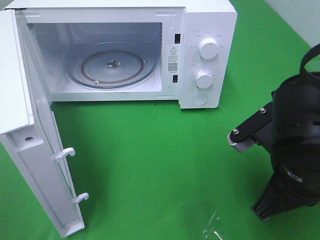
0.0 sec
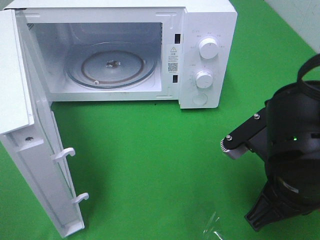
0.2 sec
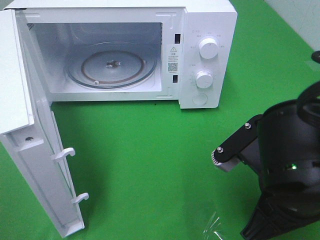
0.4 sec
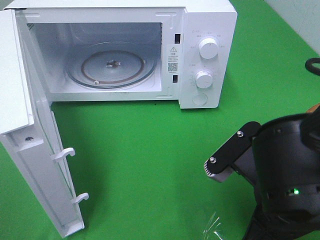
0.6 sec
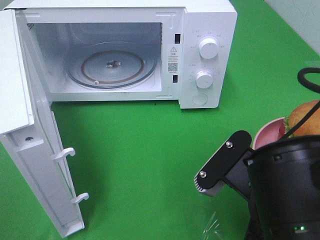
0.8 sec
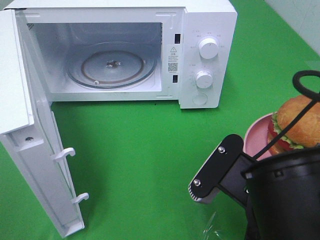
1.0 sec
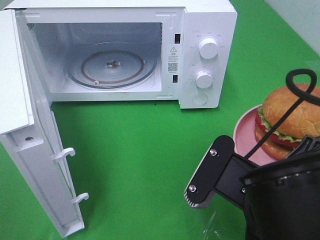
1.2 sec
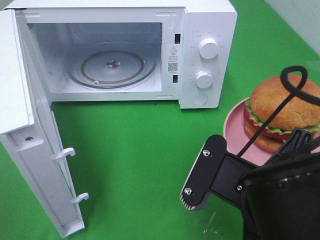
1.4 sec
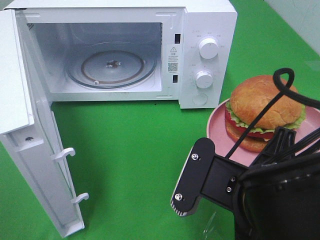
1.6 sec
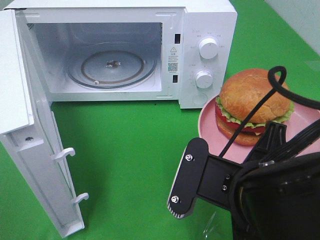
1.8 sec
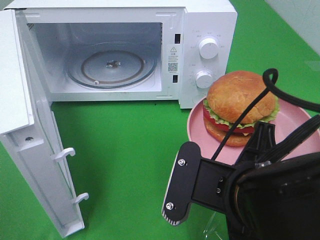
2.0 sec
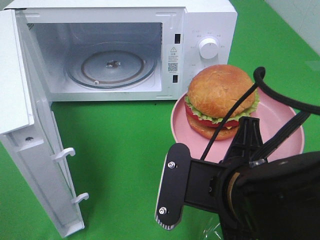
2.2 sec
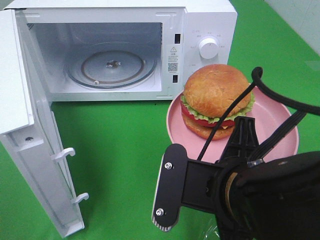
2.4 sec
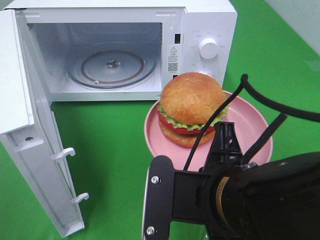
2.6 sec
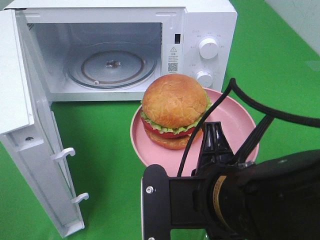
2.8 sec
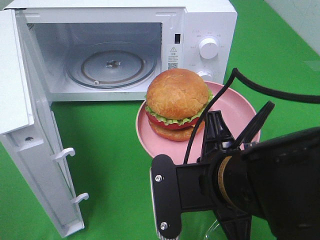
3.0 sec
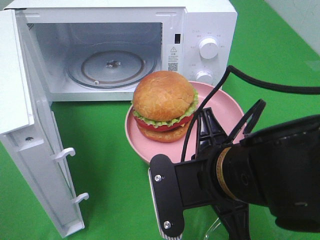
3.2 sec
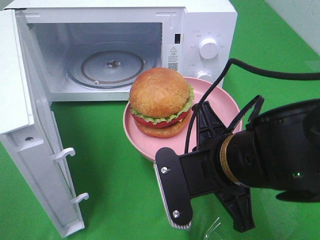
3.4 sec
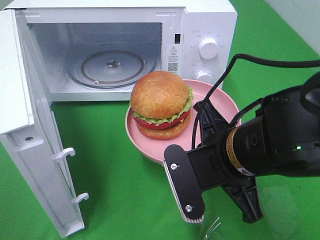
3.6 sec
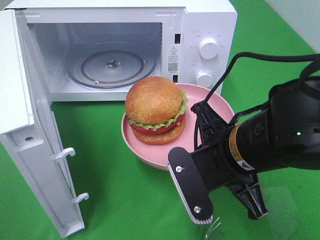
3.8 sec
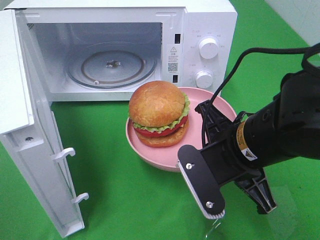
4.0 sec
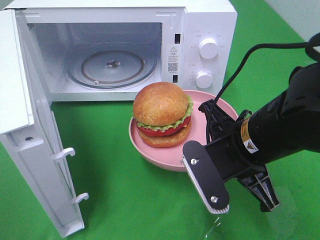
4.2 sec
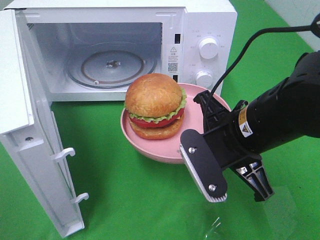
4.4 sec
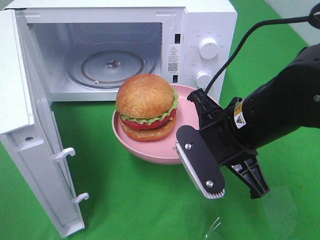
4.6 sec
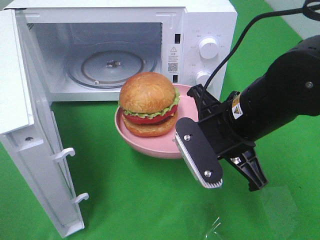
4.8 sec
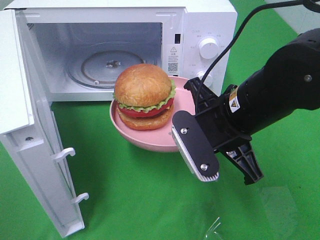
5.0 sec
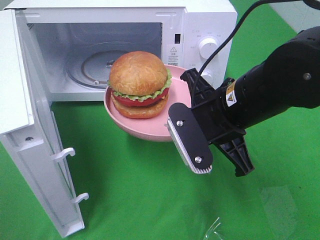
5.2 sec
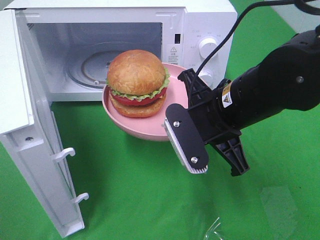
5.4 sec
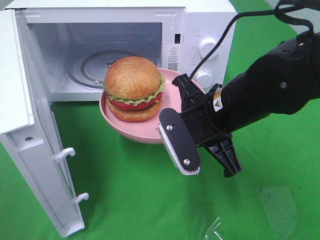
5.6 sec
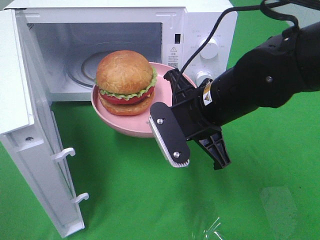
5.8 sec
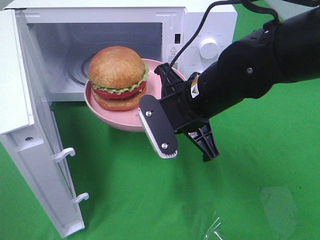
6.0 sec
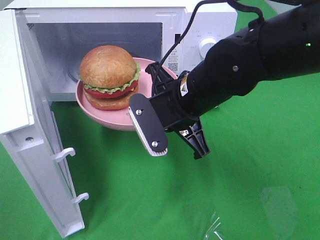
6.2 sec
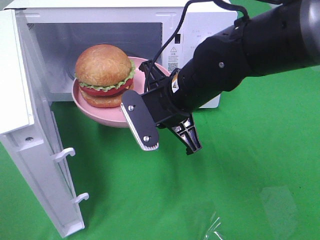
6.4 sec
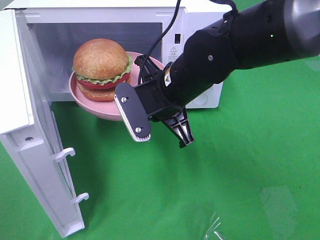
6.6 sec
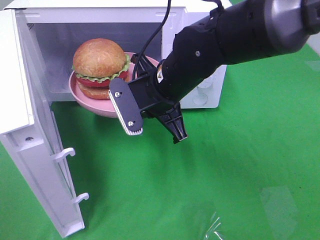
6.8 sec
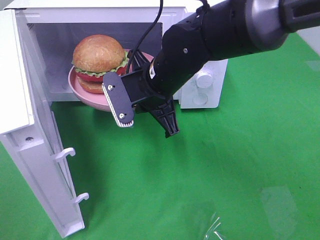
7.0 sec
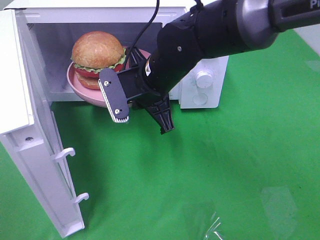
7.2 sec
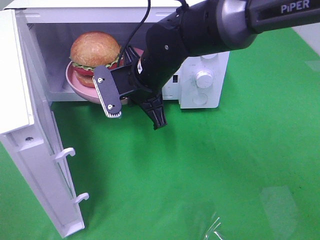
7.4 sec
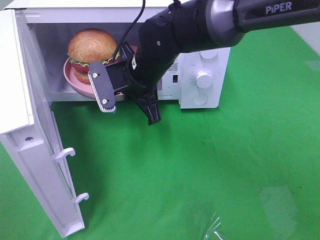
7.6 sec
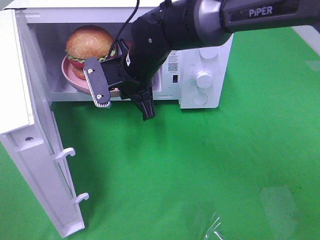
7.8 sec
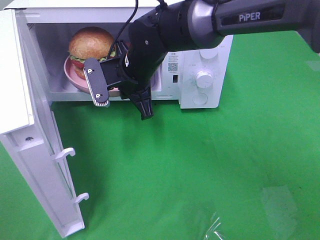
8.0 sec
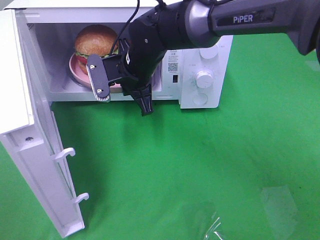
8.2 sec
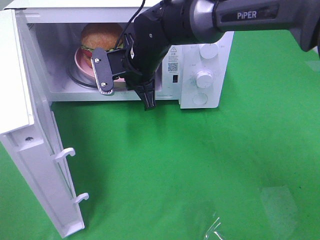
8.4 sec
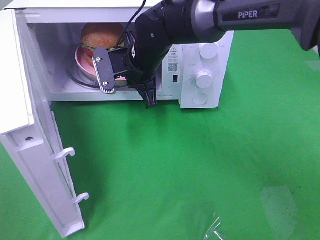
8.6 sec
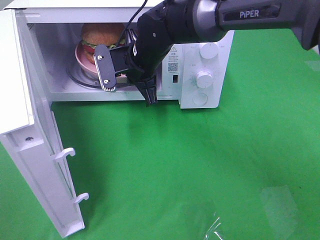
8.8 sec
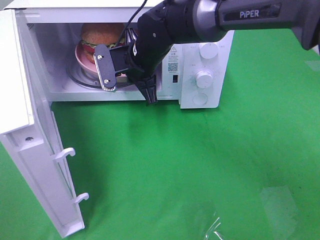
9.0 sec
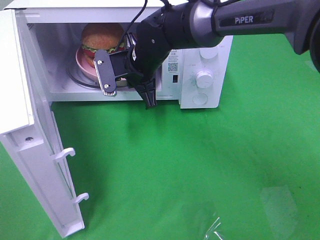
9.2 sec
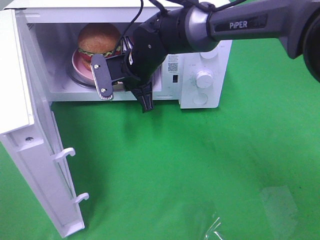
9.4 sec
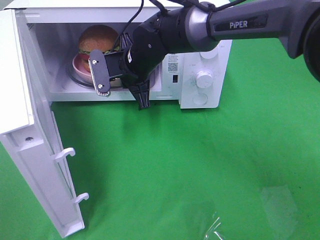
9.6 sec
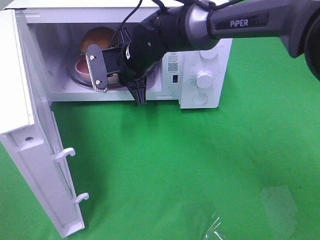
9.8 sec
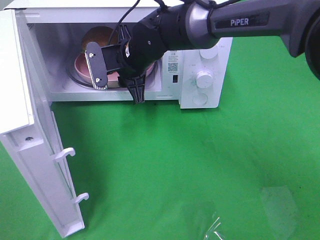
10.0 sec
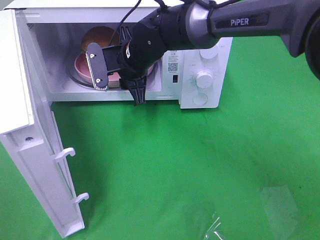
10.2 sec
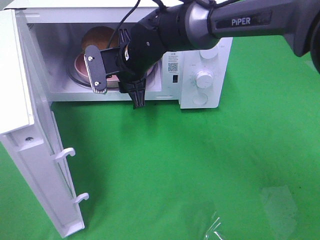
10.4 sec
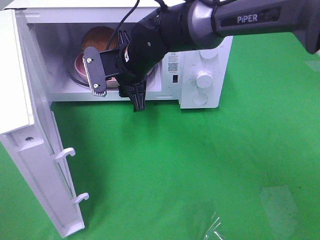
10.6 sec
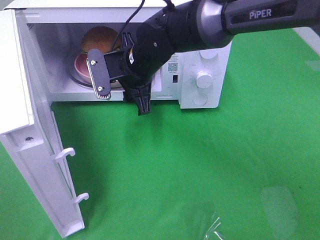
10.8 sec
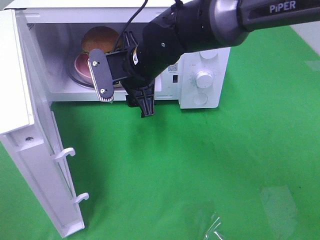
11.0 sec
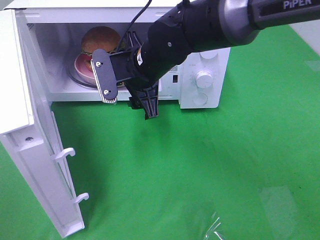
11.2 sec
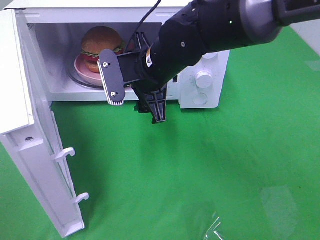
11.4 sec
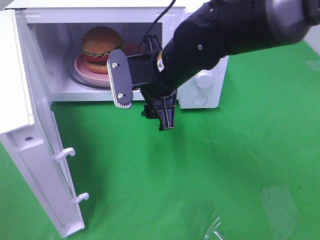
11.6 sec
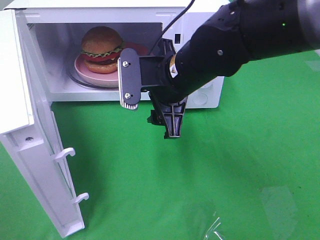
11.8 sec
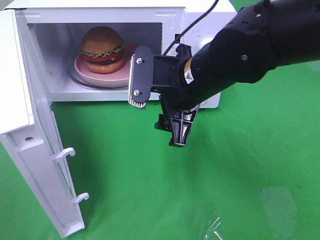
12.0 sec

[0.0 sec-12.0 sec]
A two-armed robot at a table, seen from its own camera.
Task of the whole recording: Heat the burger.
Step, 0.0 sec to 11.0 sec: Right hand: place the plate in the microwave.
0.0 sec to 1.6 sec: The right gripper shifts approximately 10 cm to the left and backward.
3.0 sec to 4.4 sec: The right gripper goes roughly 10 cm forward.
4.4 sec to 6.0 sec: The right gripper goes about 10 cm forward and to the left.
6.0 sec to 7.6 sec: The right gripper moves forward and to the left, roughly 10 cm.
7.6 sec to 9.0 sec: The right gripper shifts some 5 cm forward.
9.0 sec to 10.4 sec: The right gripper opens its fingers.
10.4 sec to 12.0 sec: The right gripper is displaced backward and to the right by approximately 15 cm.

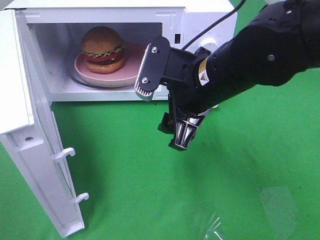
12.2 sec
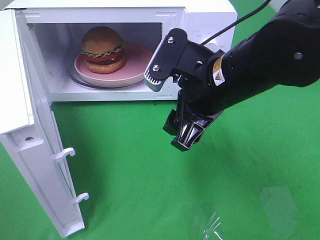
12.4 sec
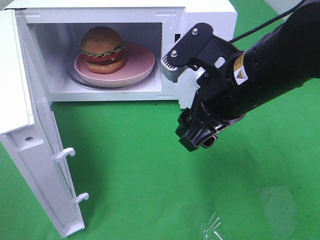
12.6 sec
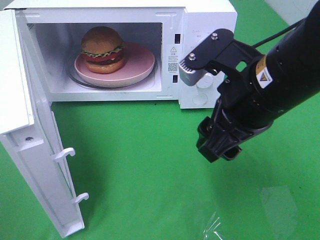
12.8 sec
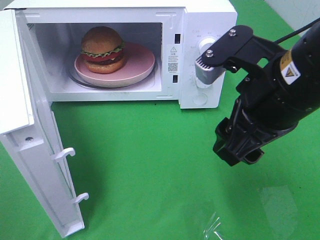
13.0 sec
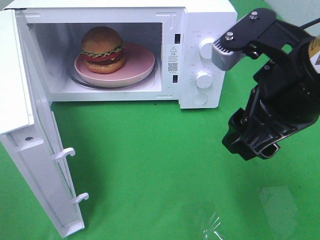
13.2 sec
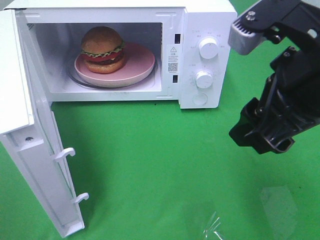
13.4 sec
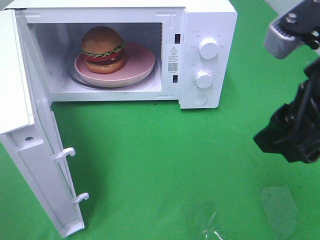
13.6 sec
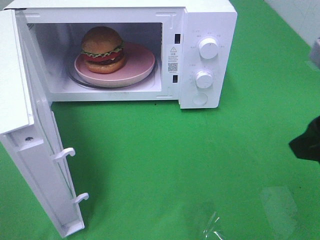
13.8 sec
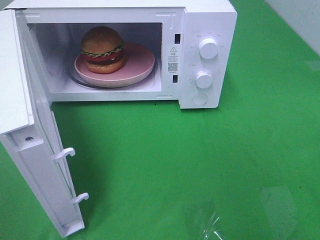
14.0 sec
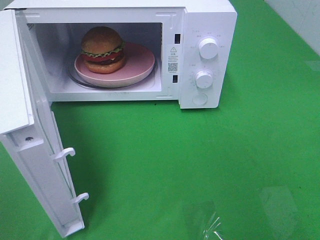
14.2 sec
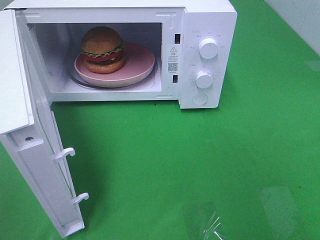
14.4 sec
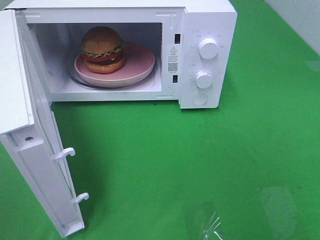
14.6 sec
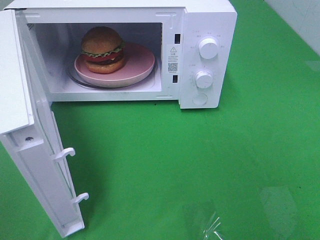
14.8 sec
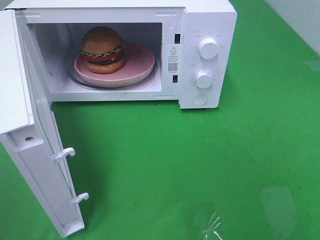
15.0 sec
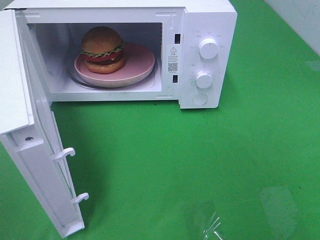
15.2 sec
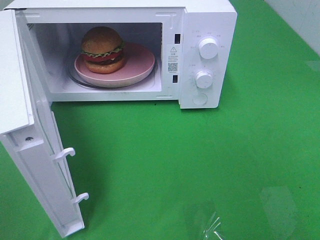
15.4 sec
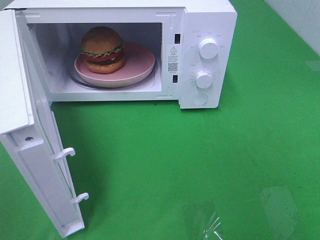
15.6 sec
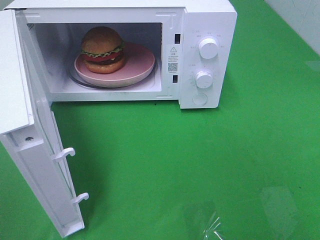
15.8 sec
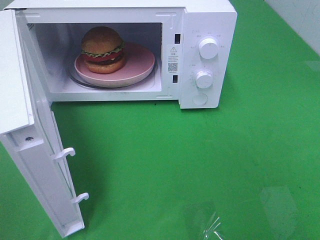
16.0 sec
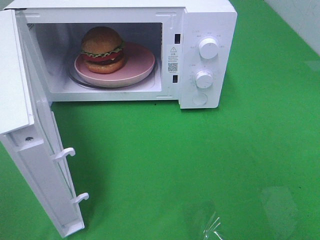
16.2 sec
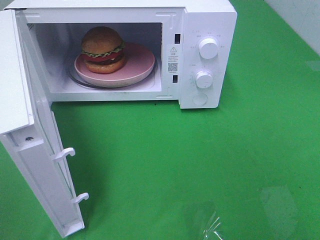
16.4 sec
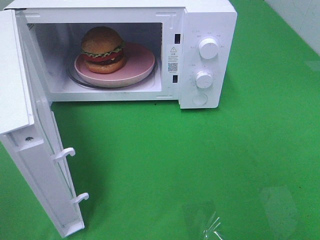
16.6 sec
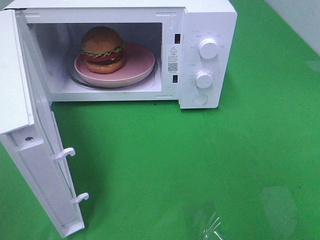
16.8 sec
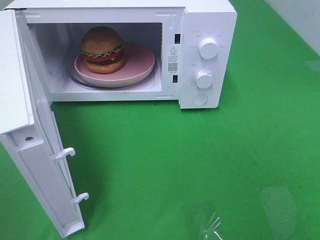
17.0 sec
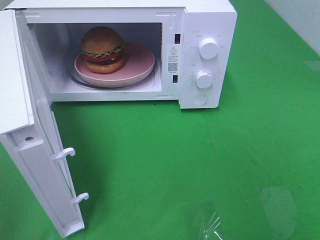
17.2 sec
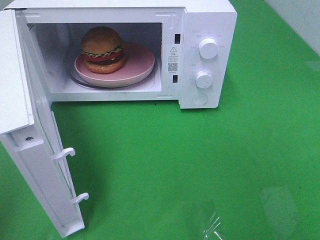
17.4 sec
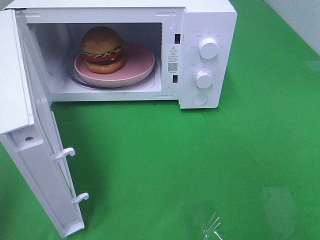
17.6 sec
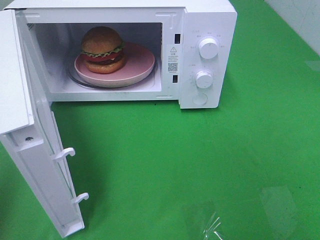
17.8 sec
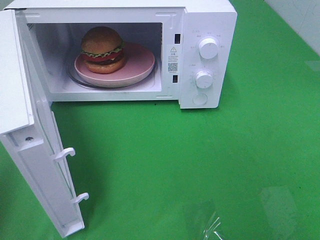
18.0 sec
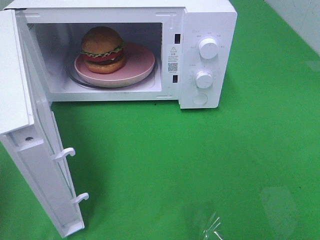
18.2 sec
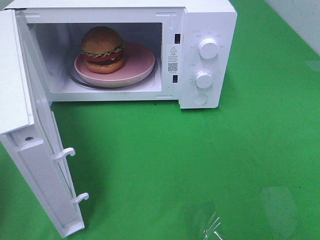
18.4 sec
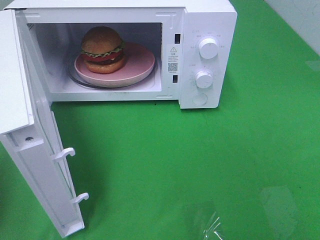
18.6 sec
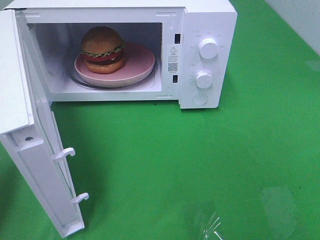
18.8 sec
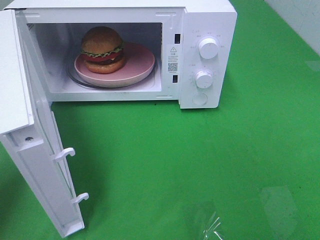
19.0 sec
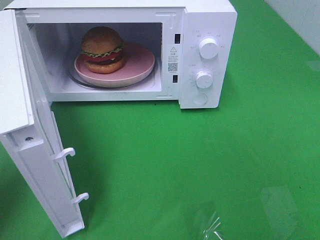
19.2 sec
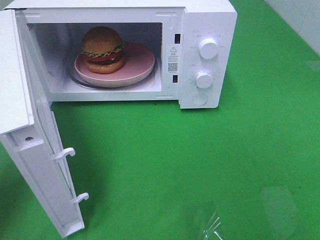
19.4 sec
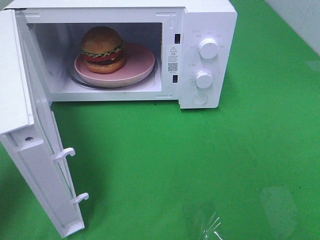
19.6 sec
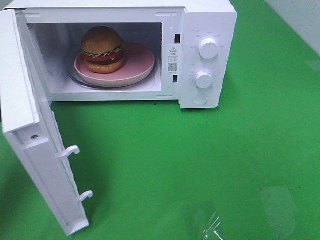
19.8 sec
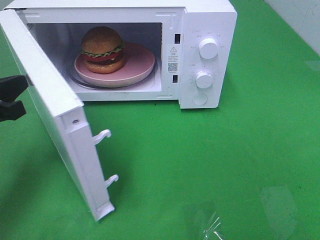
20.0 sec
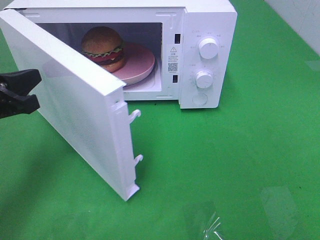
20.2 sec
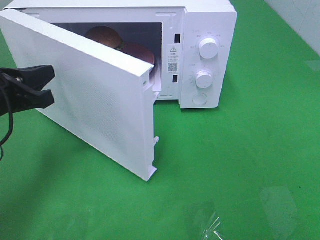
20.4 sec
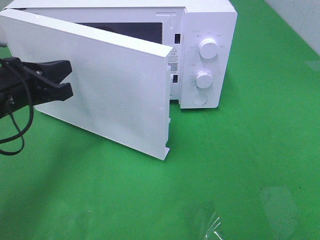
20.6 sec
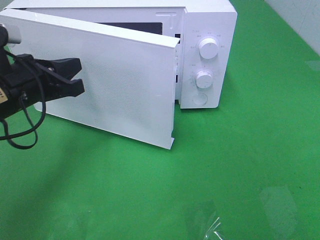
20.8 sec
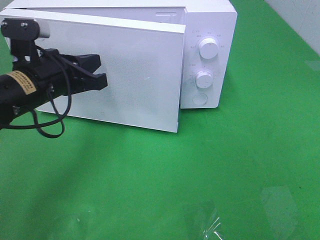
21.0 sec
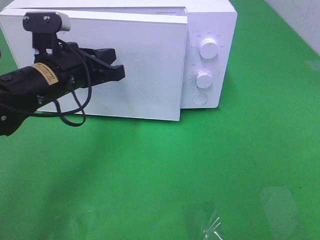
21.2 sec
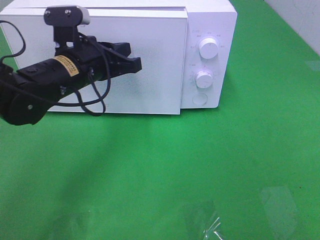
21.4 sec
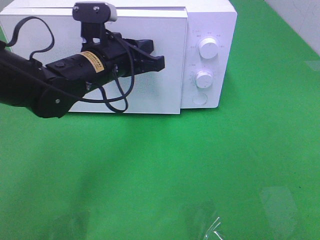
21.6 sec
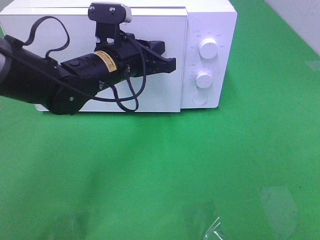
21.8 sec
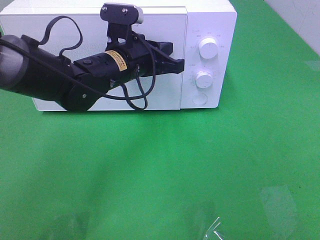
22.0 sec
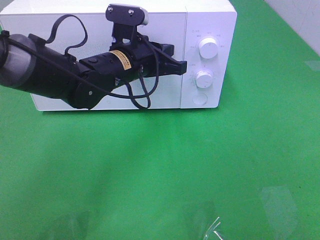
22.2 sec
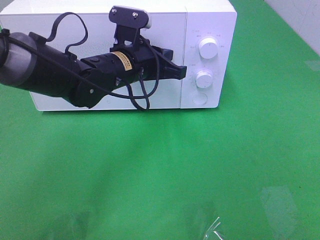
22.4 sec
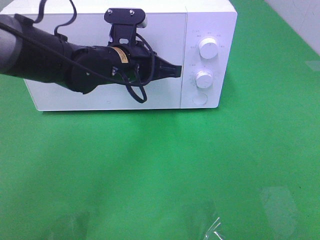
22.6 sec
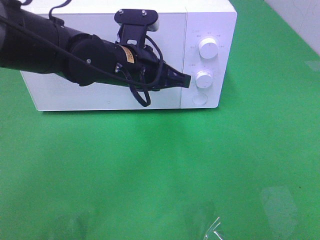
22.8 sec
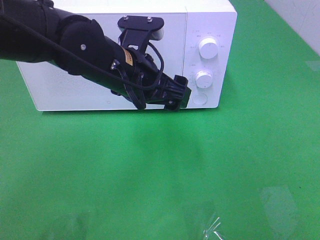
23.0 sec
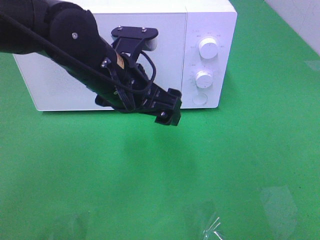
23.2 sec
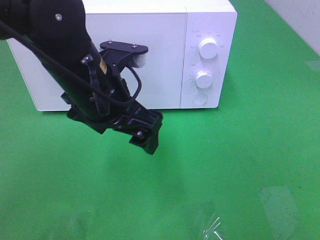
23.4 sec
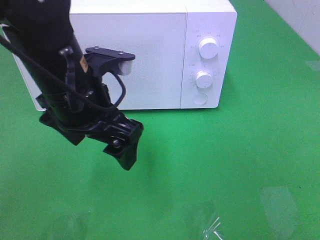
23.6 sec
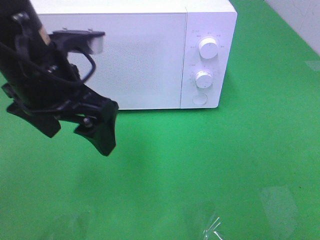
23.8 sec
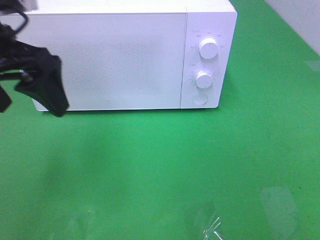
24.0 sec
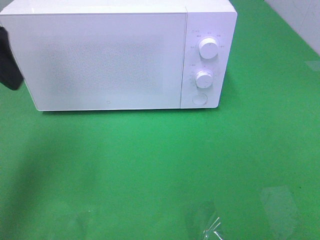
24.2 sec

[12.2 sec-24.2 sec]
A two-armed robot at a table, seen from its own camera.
Task of the whole recording: Heat the burger.
Step, 12.2 sec to 22.8 sec: Left hand: close the microwave door.
12.2 sec to 13.8 sec: The right gripper shifts approximately 20 cm to the right, backward and upward.
13.8 sec to 15.2 sec: The right gripper is displaced backward and to the right by about 15 cm.
15.2 sec to 16.6 sec: Neither gripper changes place.
18.2 sec to 19.8 sec: The left gripper shifts approximately 15 cm forward and downward.
19.8 sec to 21.2 sec: The left gripper heads to the right and forward, covering about 15 cm.
21.2 sec to 22.6 sec: The left gripper goes roughly 10 cm to the right.
22.6 sec to 24.2 sec: The left gripper heads to the left, upward and backward, covering approximately 30 cm, and opens its fingers.
